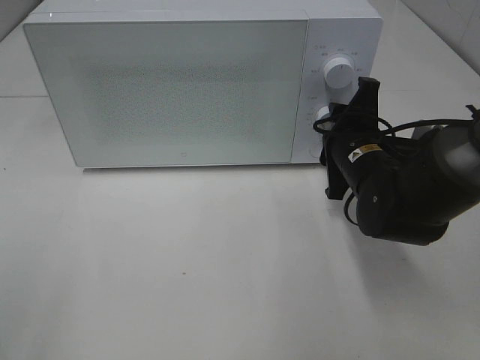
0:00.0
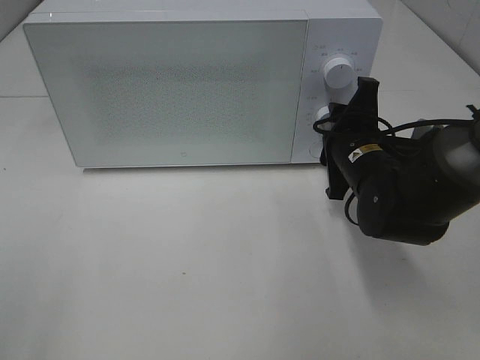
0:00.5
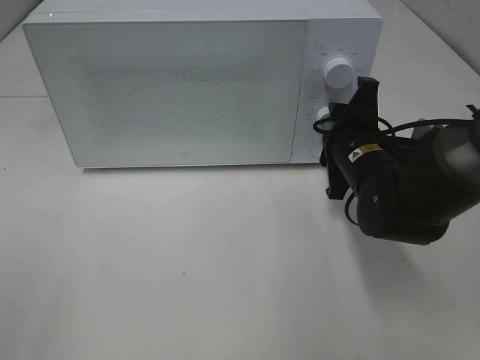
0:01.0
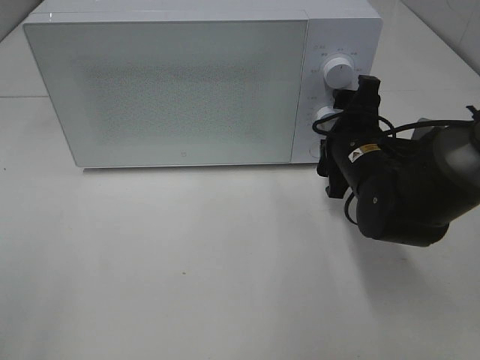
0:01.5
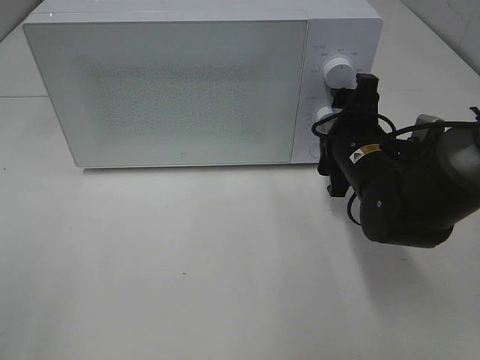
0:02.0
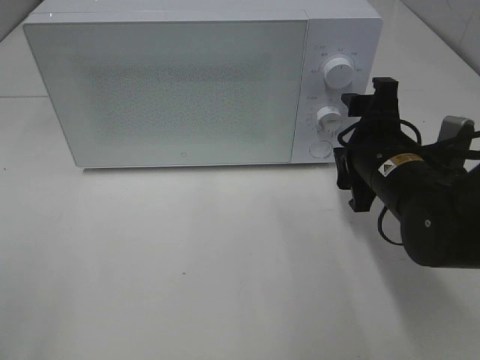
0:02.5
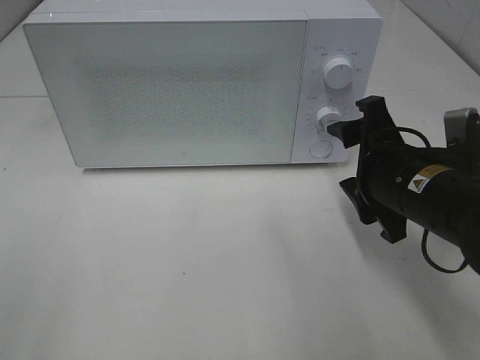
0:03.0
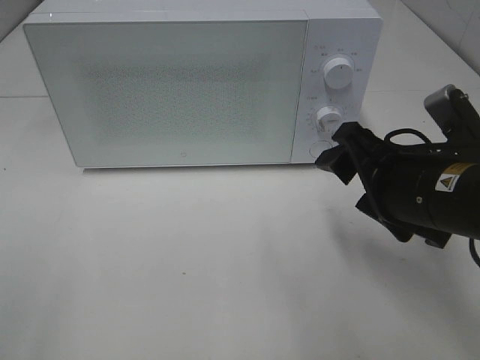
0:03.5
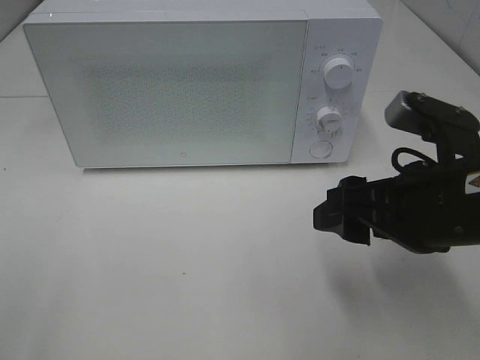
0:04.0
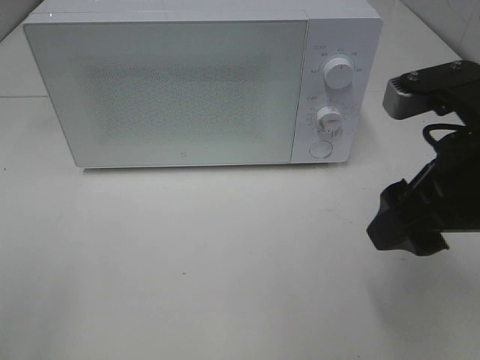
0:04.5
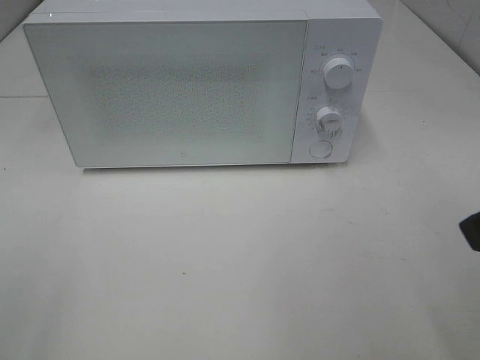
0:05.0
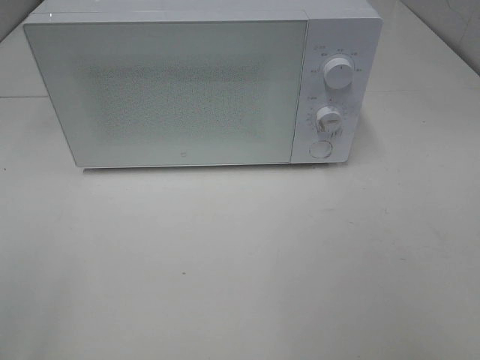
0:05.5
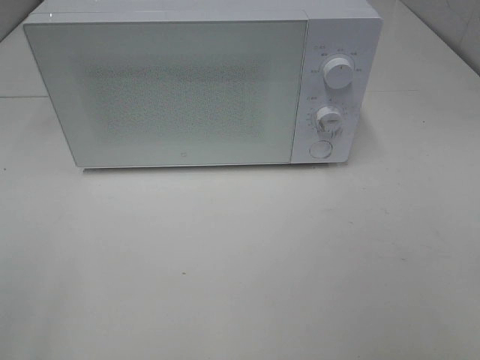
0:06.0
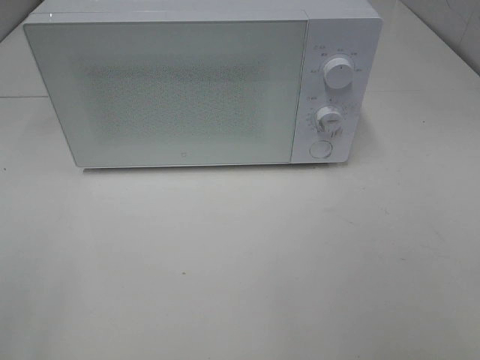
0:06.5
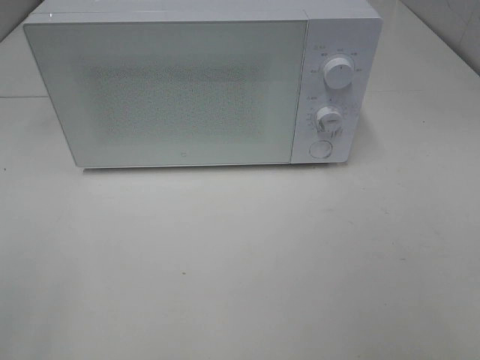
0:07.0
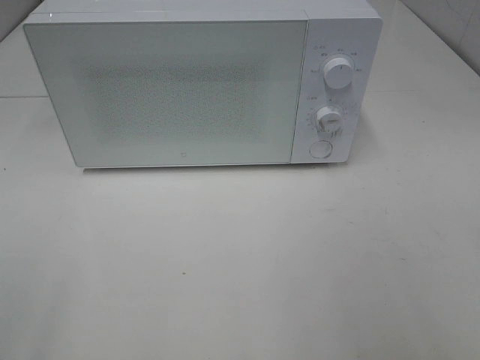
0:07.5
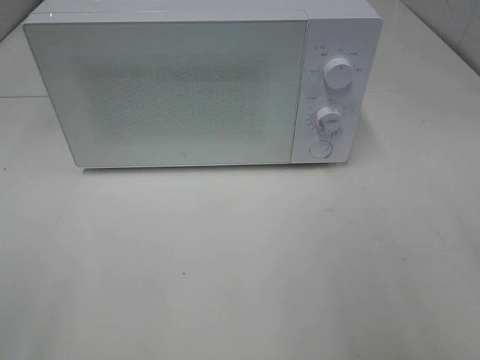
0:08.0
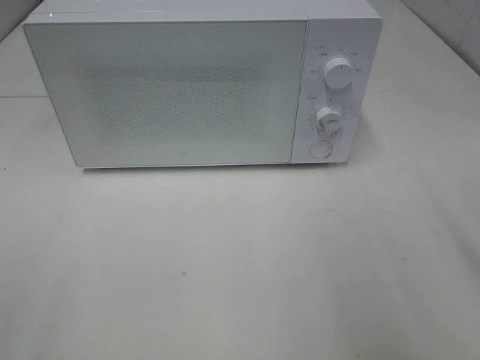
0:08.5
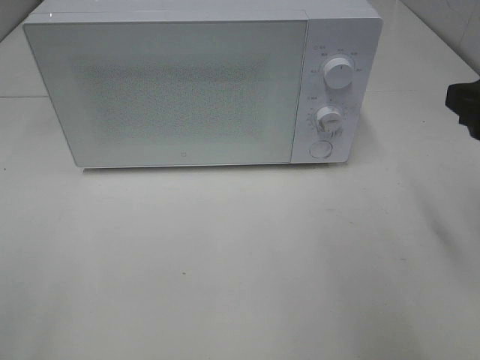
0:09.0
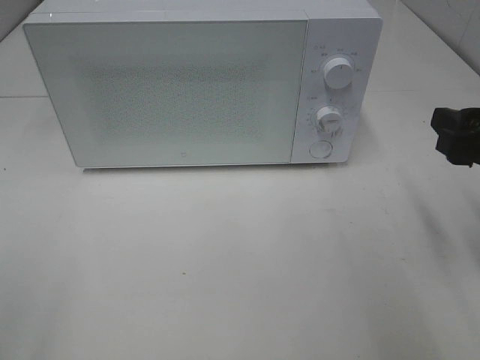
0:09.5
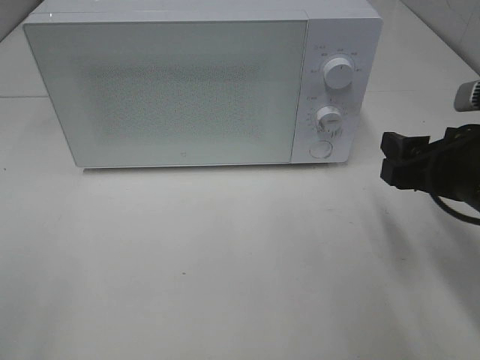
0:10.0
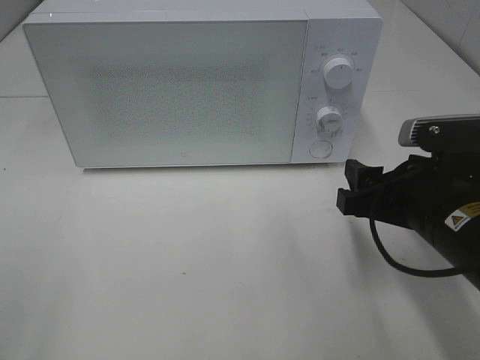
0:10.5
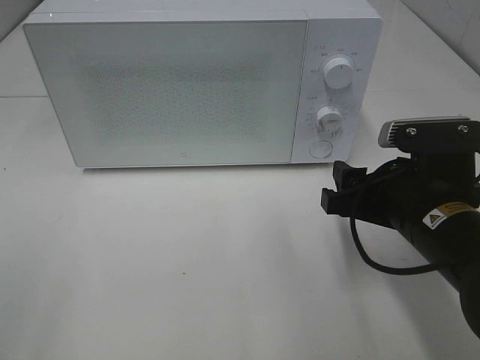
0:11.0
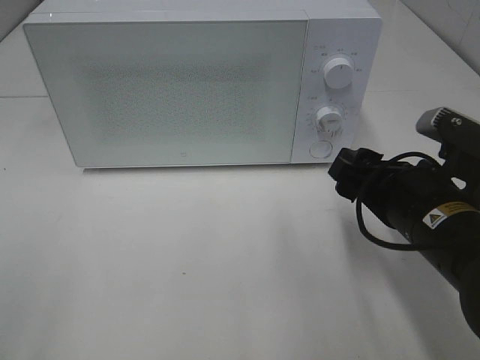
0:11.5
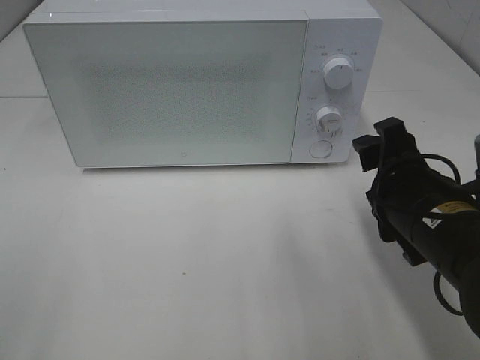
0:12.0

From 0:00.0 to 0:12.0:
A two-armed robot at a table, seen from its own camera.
Task of the whole recording: Heat Sandwich.
Step, from 0:00.0 to 0:02.0: Right hand: twist timer button.
From 0:00.0 to 0:02.0: The right gripper opens its fingers.
From 0:02.0 to 0:04.0: The right gripper heads backward and upward, covering about 15 cm.
From 0:04.0 to 0:06.0: The right gripper moves backward, to the right and upward, about 25 cm.
From 0:08.0 to 0:10.0: The right gripper moves downward and forward, about 15 cm.
From 0:10.0 to 0:12.0: The right gripper shifts about 5 cm to the left.

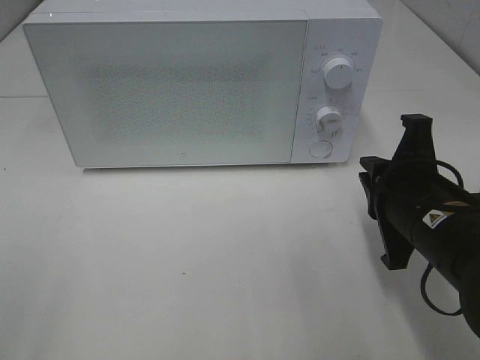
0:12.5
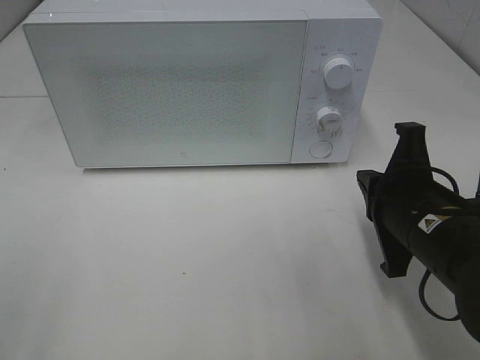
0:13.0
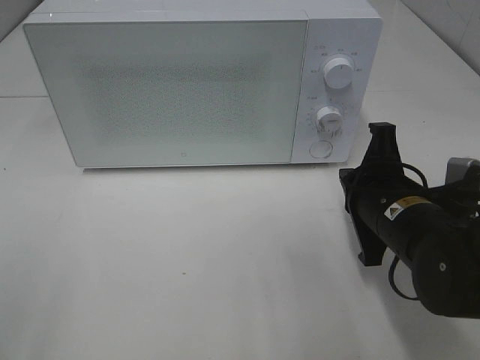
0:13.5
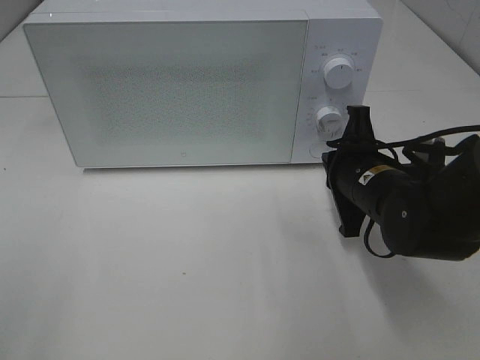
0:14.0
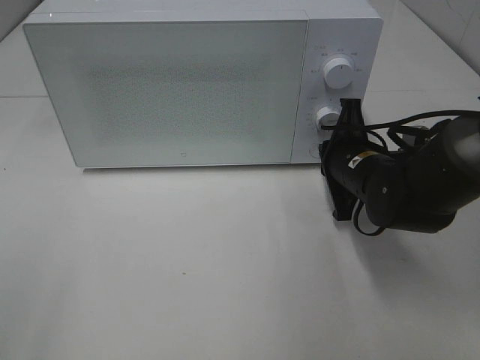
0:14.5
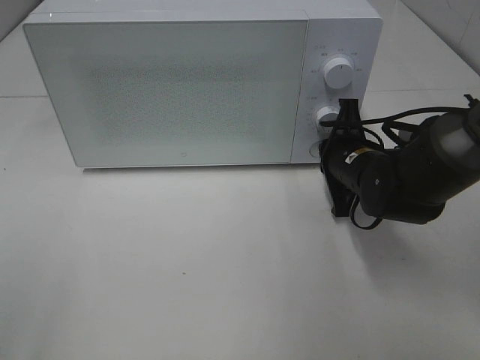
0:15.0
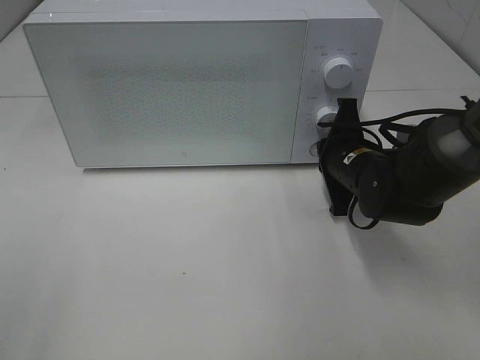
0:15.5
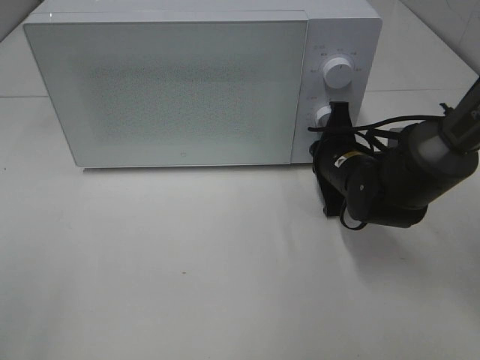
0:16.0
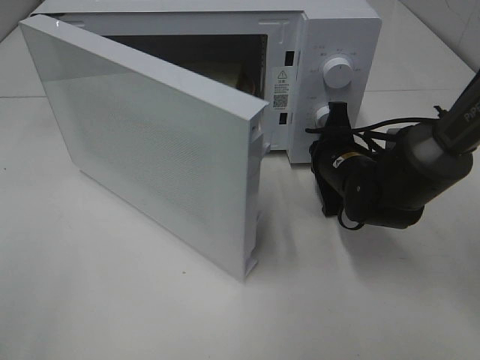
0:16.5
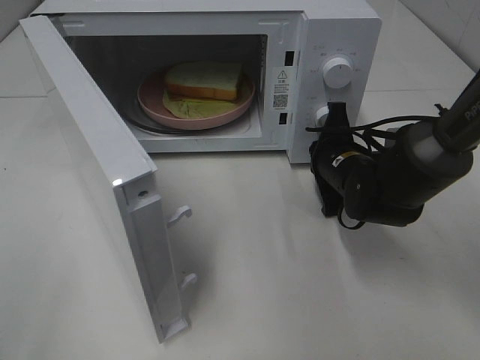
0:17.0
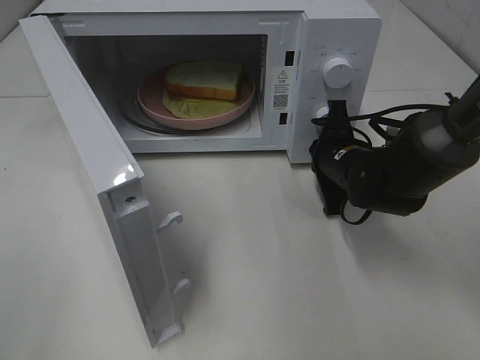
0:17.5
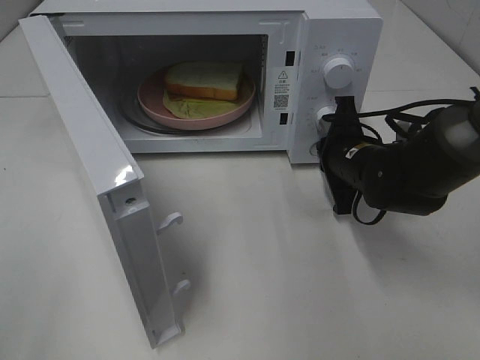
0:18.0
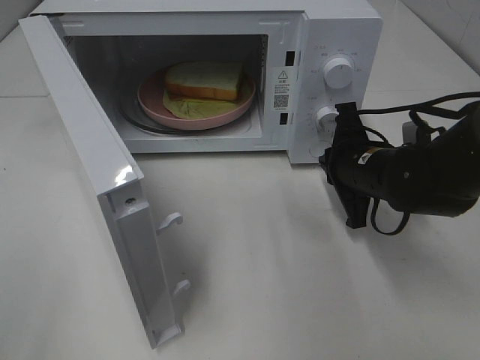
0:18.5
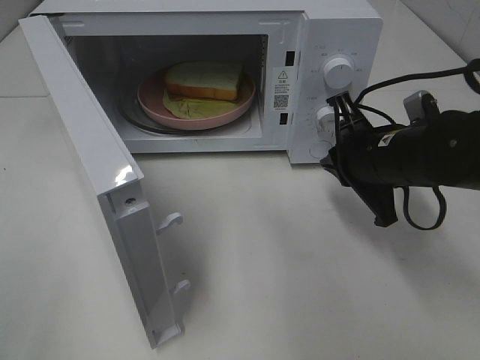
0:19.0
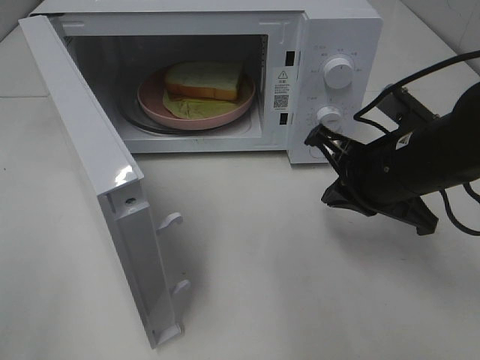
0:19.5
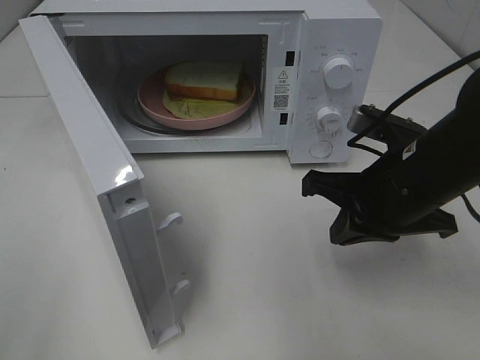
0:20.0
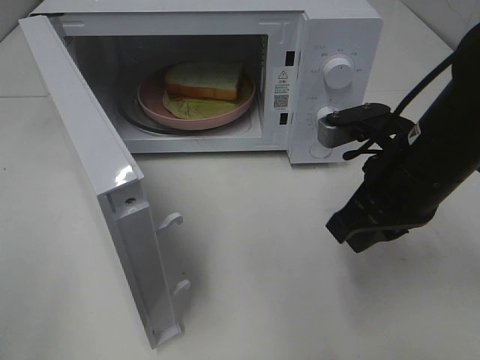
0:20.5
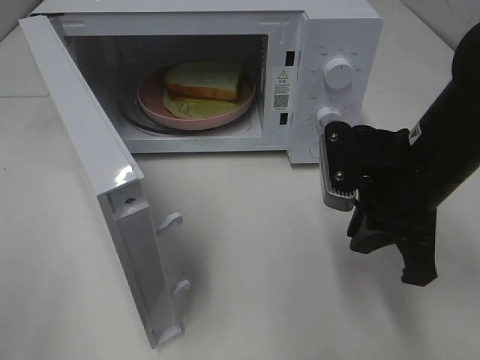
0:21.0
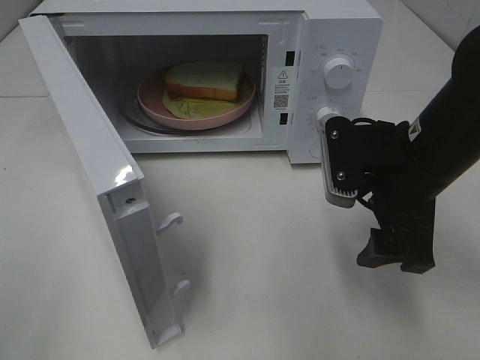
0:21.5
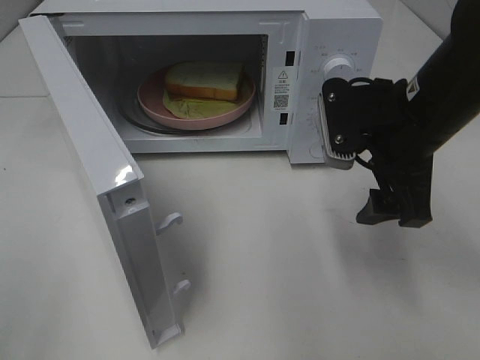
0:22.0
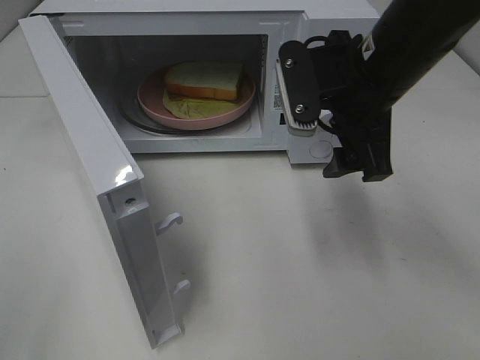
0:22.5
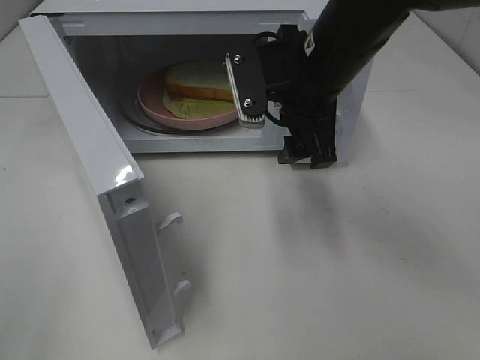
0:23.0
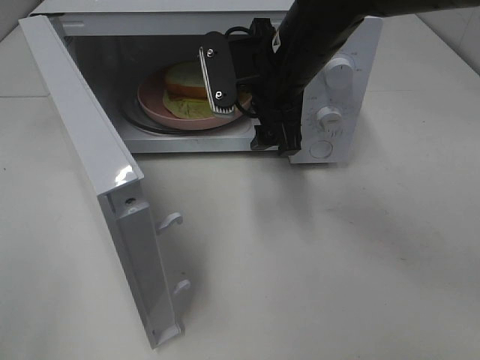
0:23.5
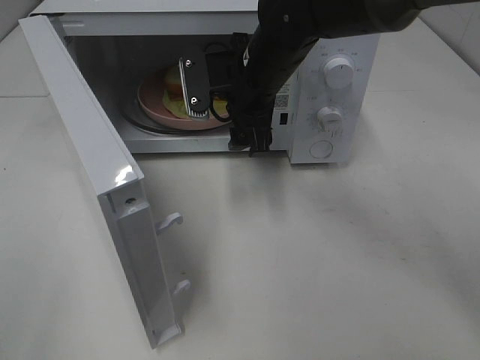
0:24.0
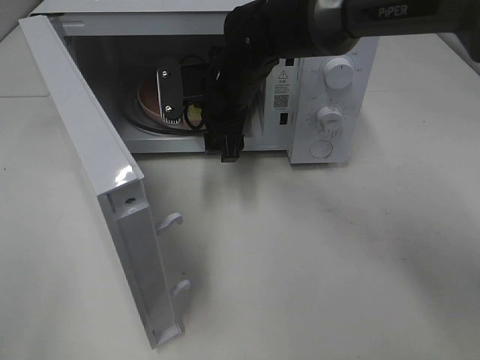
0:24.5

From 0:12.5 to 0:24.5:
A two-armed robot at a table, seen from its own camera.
Task of the whole recording: Heat Sandwich.
Step, from 0:12.5 to 0:18.0: Right hand: press the switch.
From 0:12.5 to 0:14.5: The right gripper shifts some 10 cm forward.
From 0:16.5 to 0:18.5: The right gripper ends up about 5 cm from where it was.
From 0:18.5 to 0:20.5: The right gripper shifts about 10 cm upward and backward.
From 0:20.5 to 0:22.5: The right gripper shifts roughly 10 cm upward and forward, and opens its fingers.
From 0:22.5 to 0:24.5: The right gripper goes roughly 20 cm to the left, forward and downward.

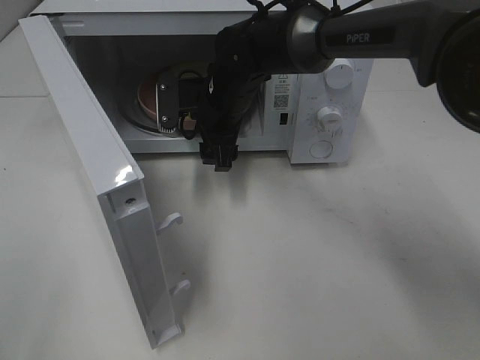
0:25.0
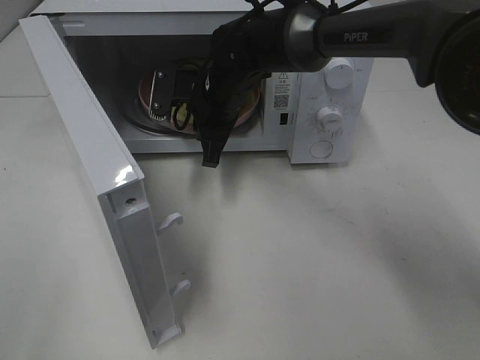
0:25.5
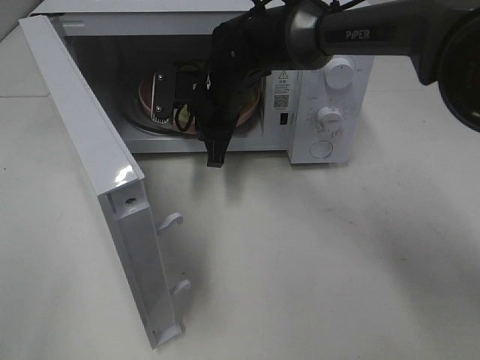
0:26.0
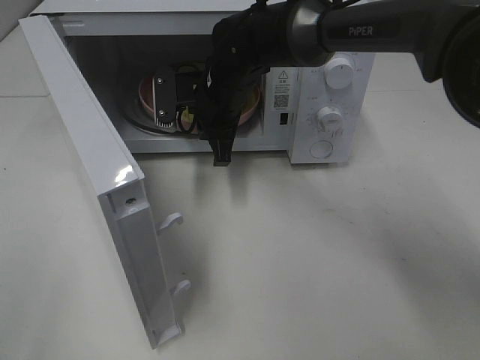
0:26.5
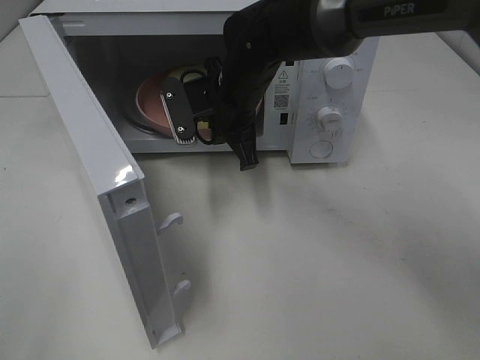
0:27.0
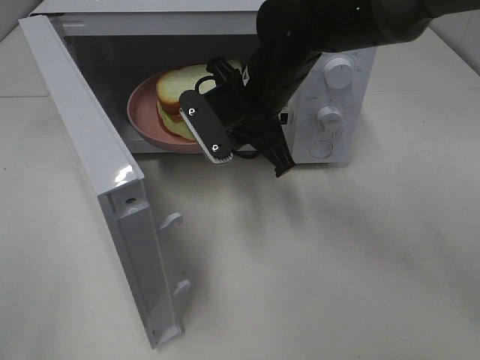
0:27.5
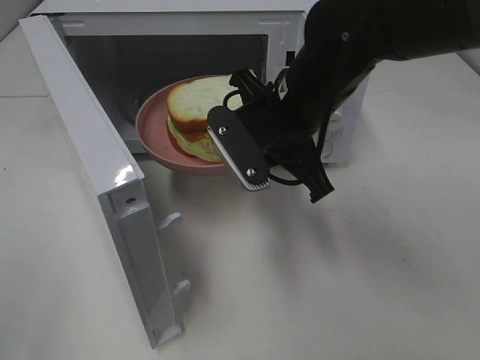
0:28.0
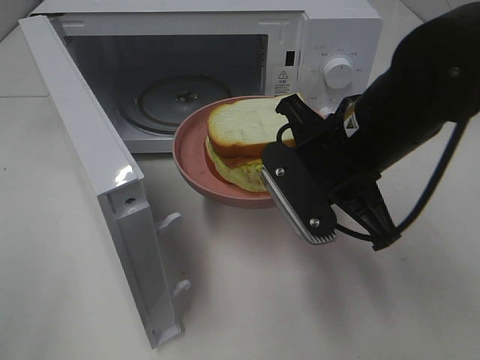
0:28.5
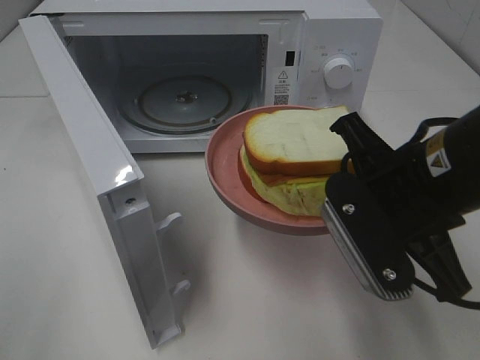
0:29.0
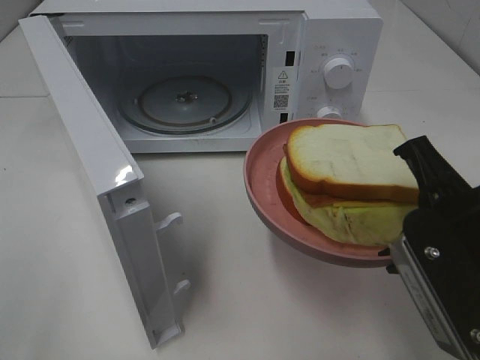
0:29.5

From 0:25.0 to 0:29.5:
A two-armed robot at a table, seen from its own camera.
Task of the whole recording: Heat Sandwich.
From 0:25.0 to 0:27.0: The right gripper closes its fingers.
From 0:27.0 to 0:29.5: The right gripper is displaced backward and to the right by roughly 30 cm.
